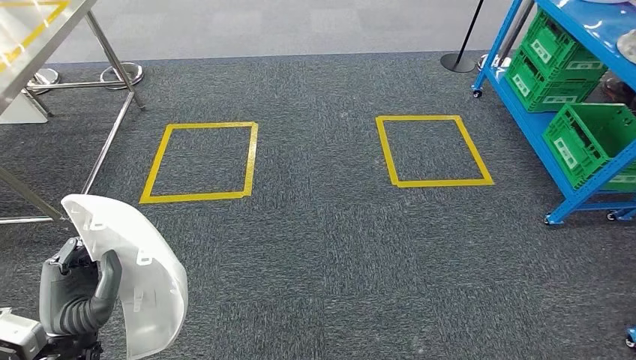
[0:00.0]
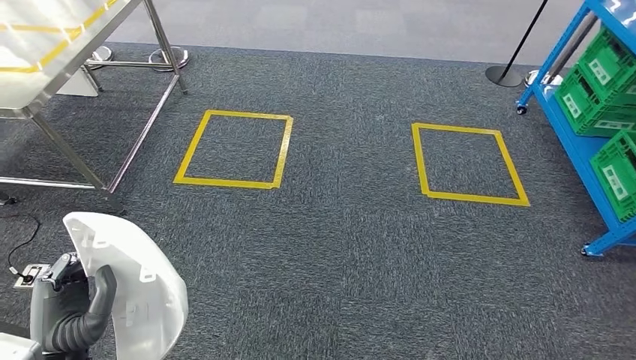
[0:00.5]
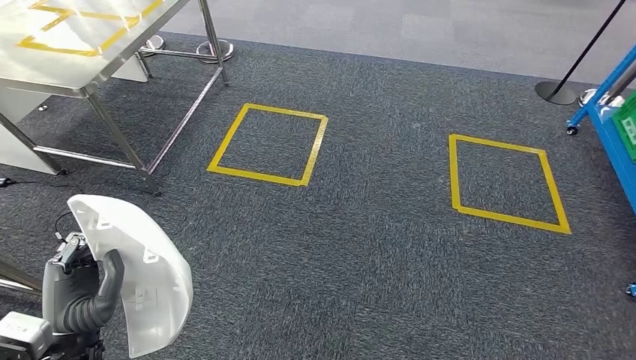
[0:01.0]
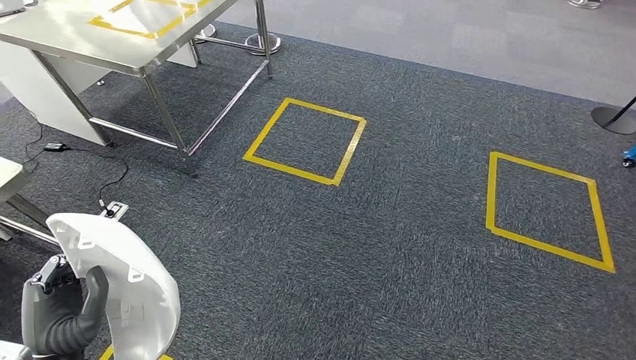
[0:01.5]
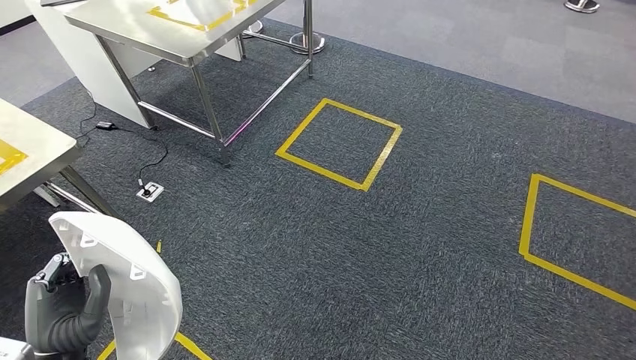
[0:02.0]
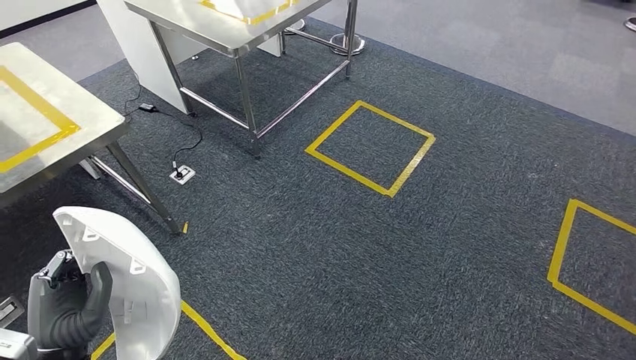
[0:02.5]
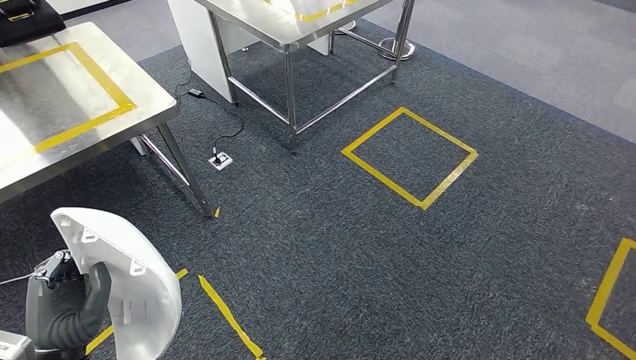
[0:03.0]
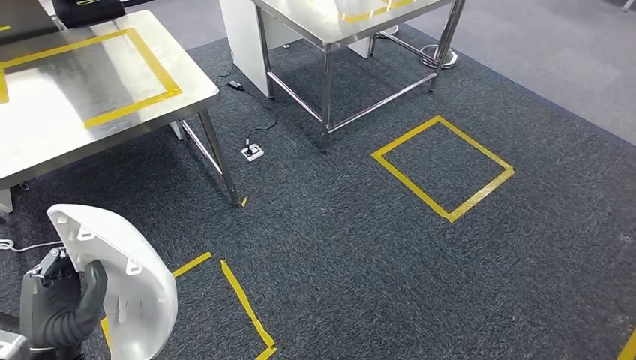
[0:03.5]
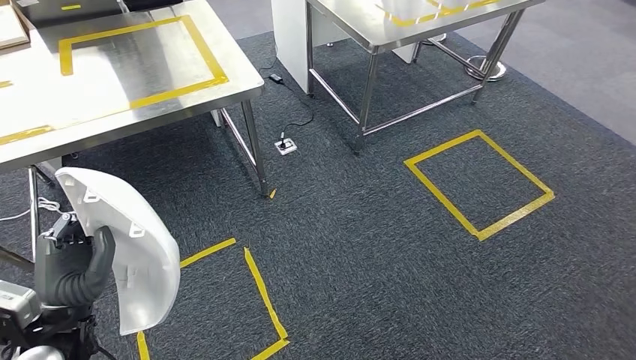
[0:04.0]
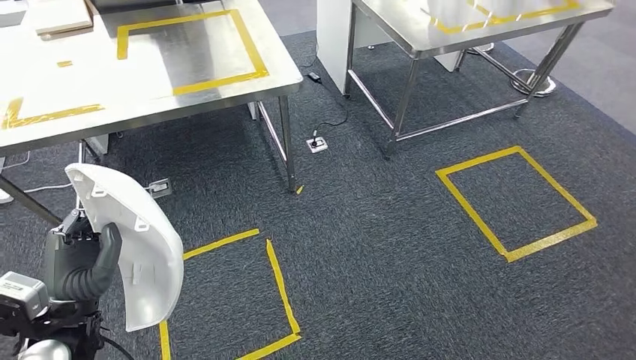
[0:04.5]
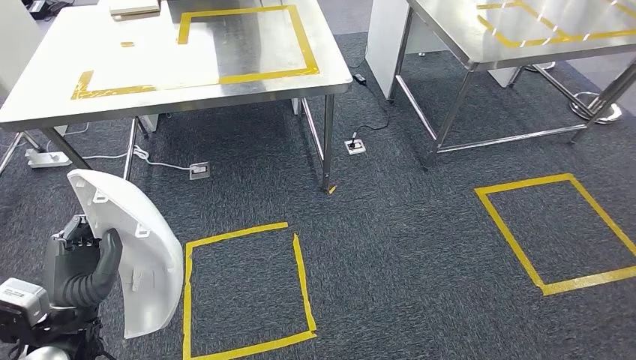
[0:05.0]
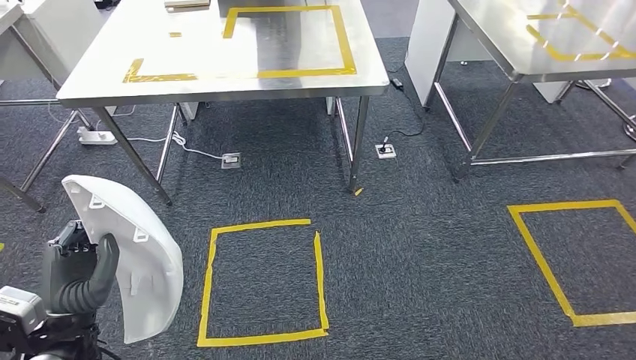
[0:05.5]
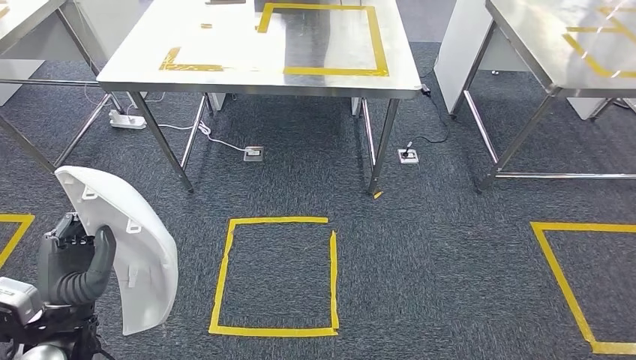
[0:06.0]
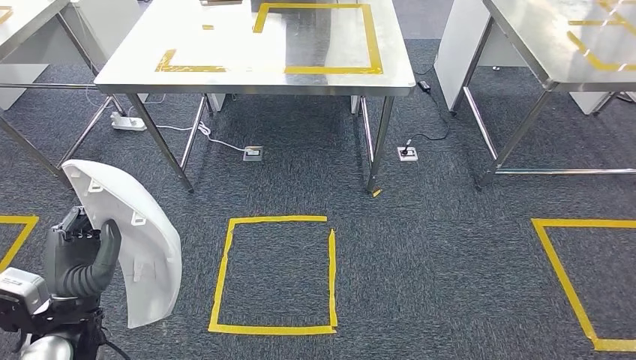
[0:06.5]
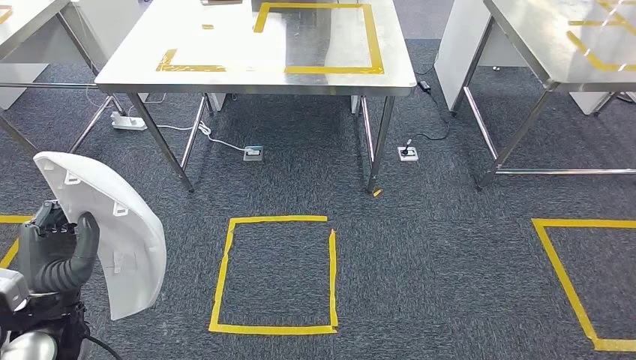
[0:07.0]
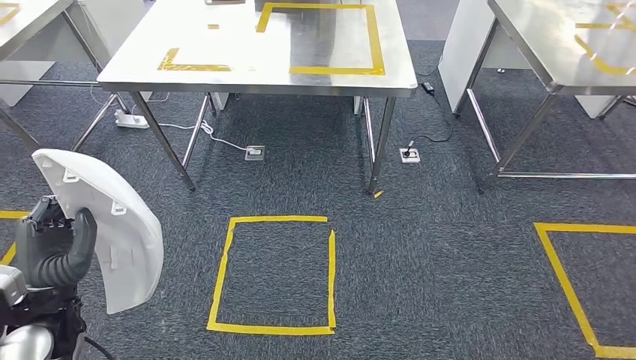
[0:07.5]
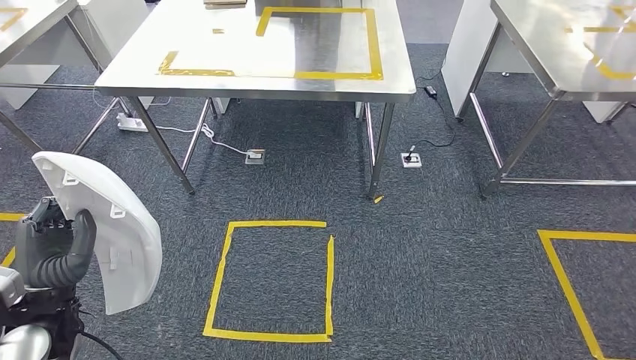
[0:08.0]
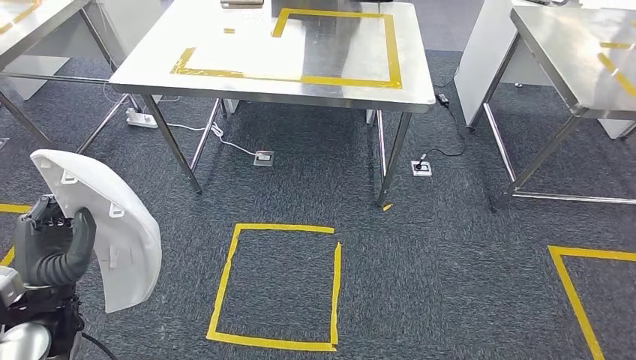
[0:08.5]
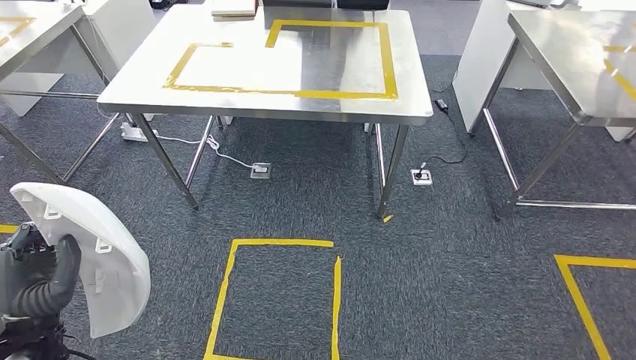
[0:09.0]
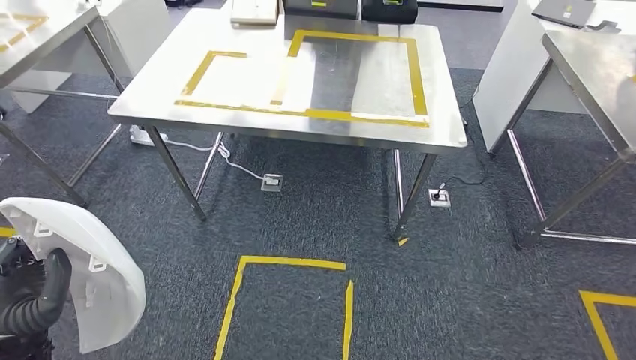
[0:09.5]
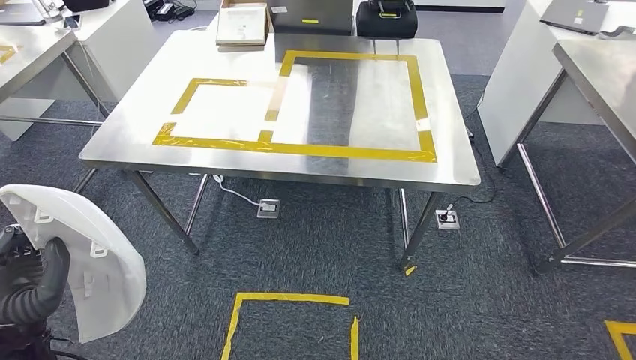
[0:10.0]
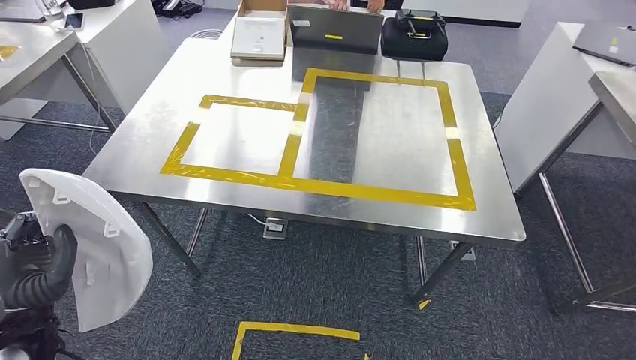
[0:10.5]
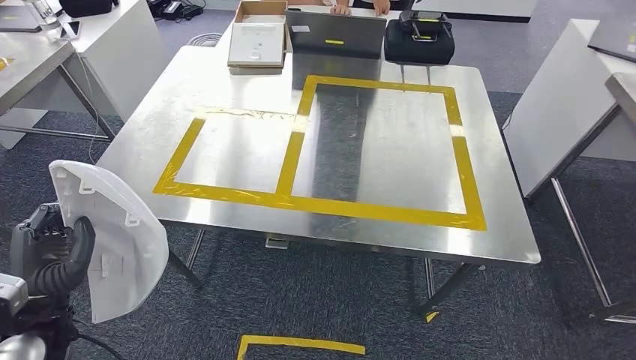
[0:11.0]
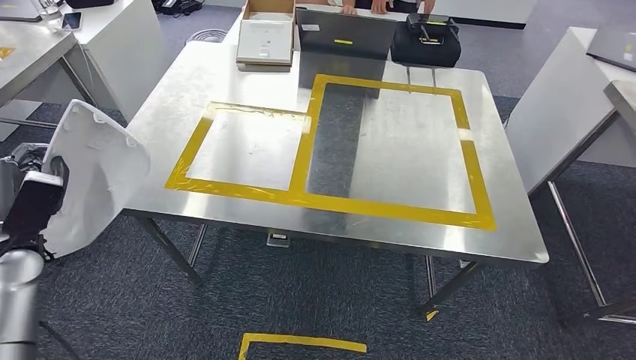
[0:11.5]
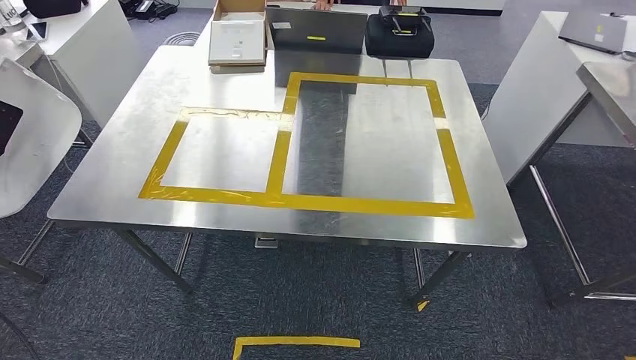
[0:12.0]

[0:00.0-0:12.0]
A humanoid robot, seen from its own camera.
Step, 0:00.0 to 0:11.0: Move the small component to the workbench.

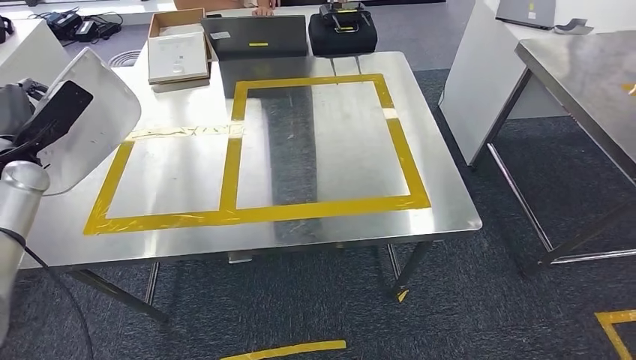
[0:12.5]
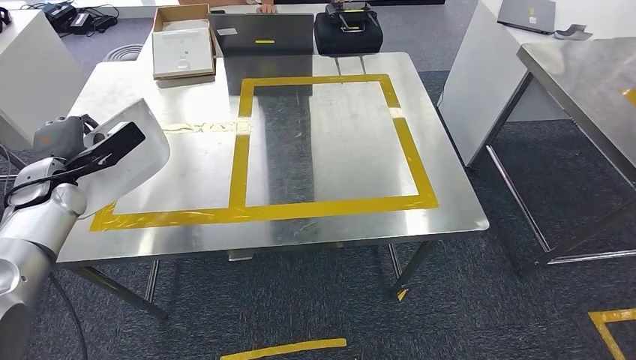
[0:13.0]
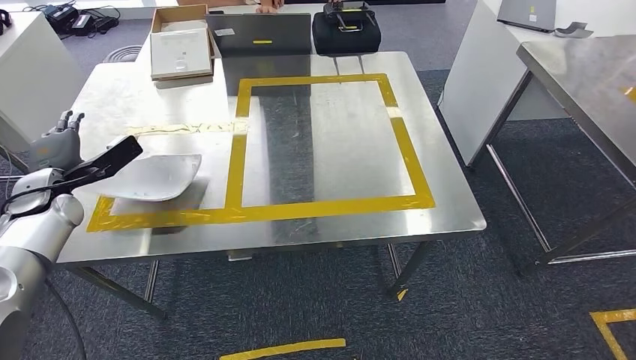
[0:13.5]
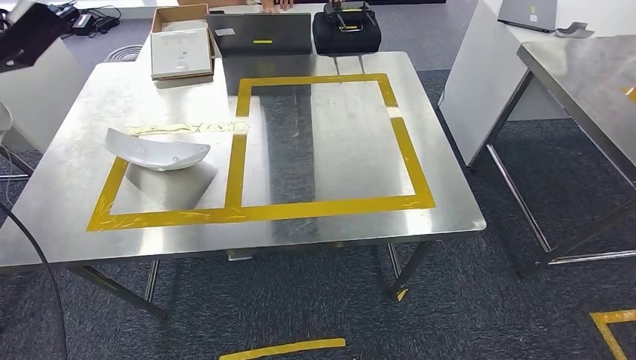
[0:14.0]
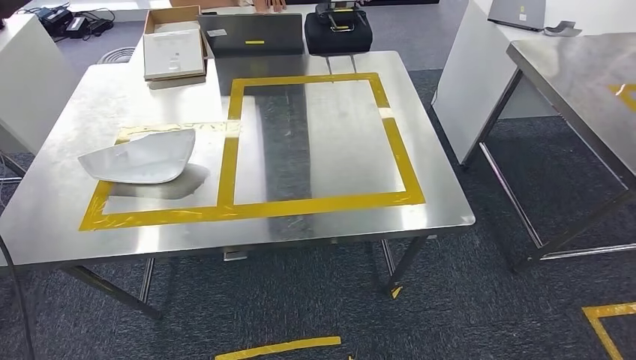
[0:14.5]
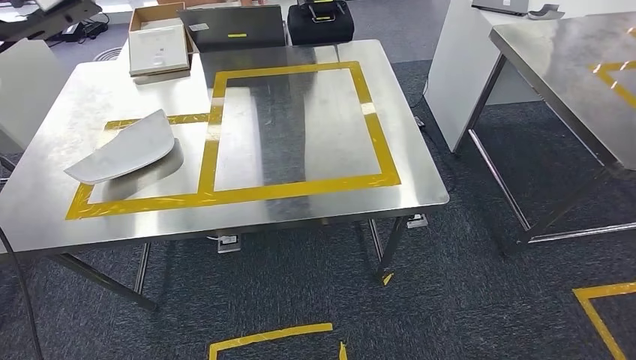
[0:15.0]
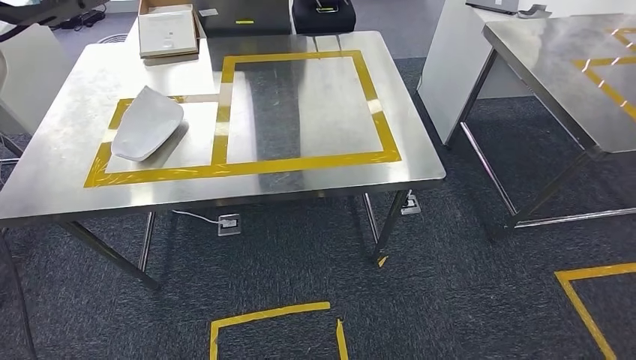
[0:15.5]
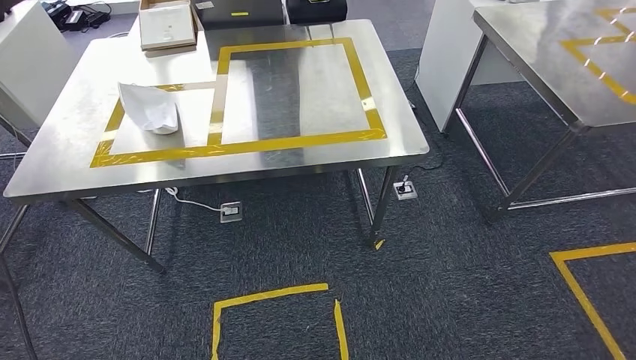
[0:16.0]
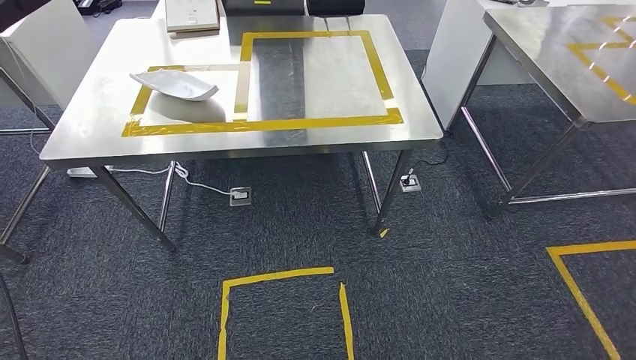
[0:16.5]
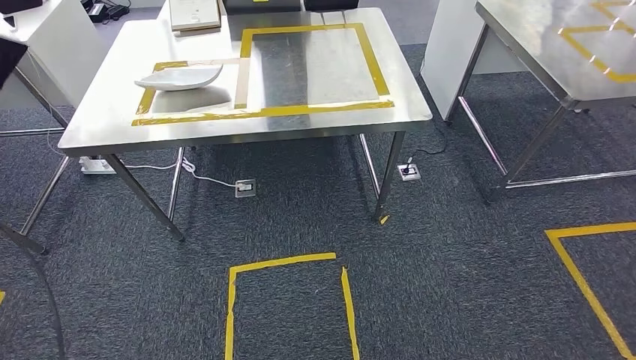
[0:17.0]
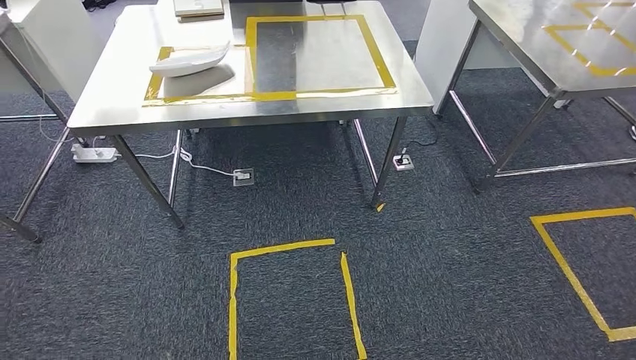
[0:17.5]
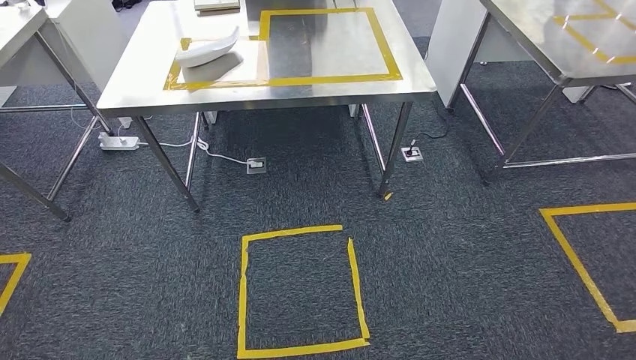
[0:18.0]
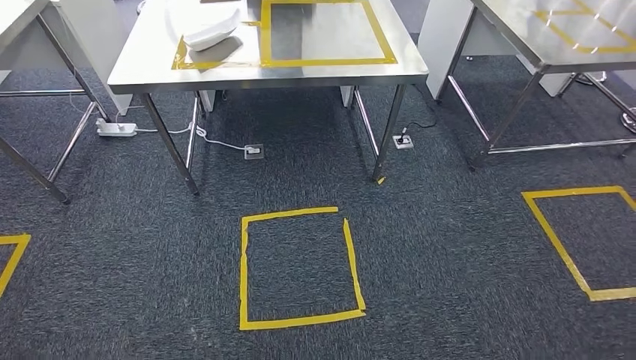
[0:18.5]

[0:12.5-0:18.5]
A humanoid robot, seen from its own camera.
Step, 0:12.5 to 0:14.5: Insert the small component into the corresponding slot on the workbench.
Step, 0:15.0 to 0:18.5: Return to the initial position at the workbench.
